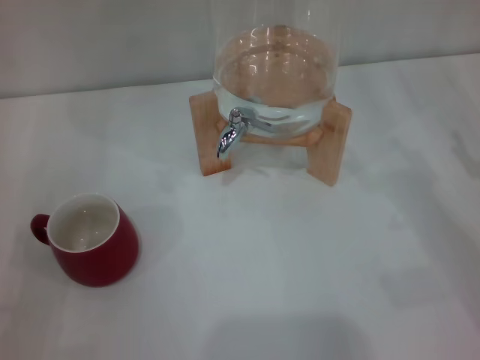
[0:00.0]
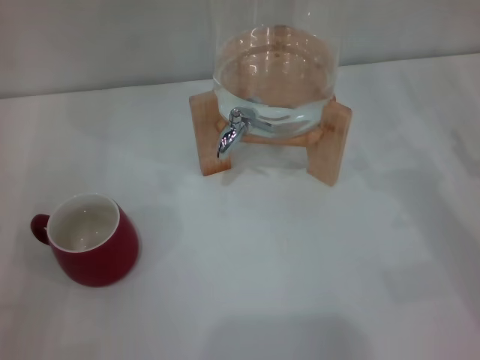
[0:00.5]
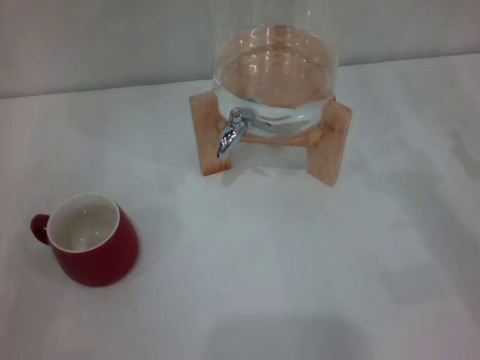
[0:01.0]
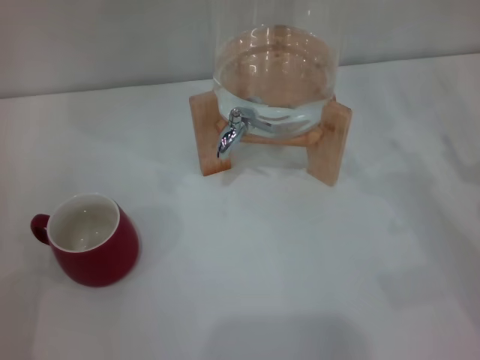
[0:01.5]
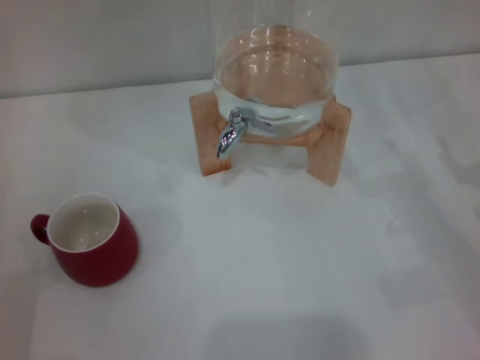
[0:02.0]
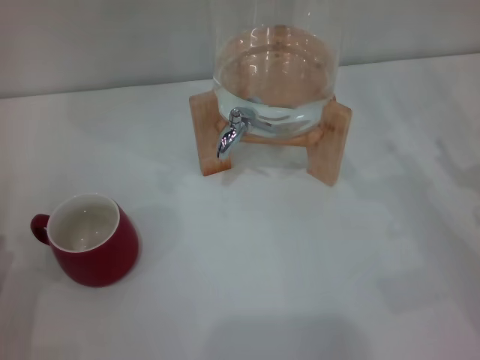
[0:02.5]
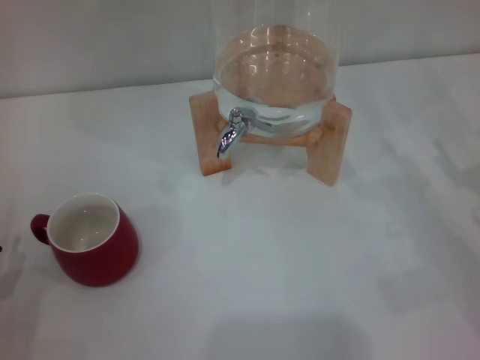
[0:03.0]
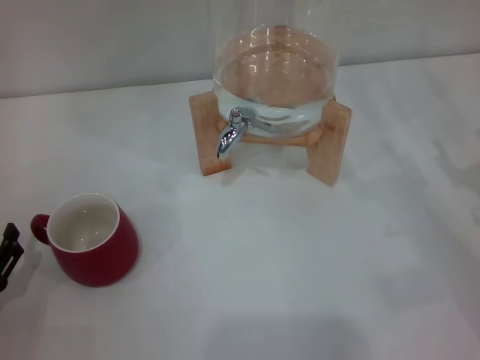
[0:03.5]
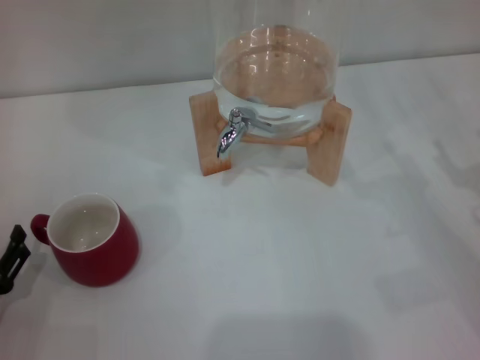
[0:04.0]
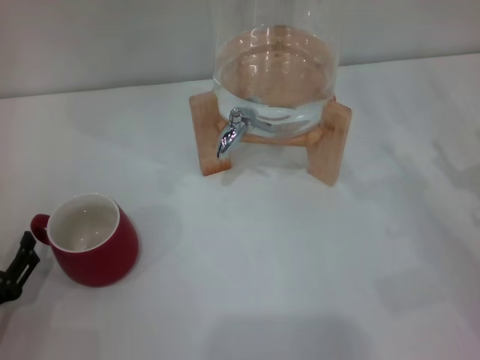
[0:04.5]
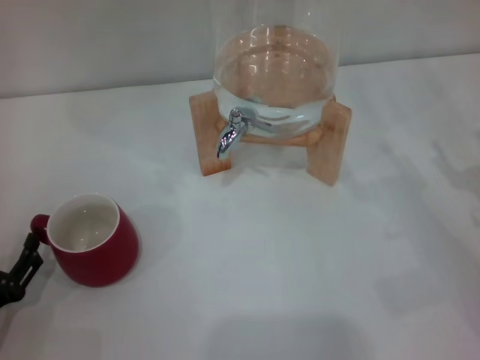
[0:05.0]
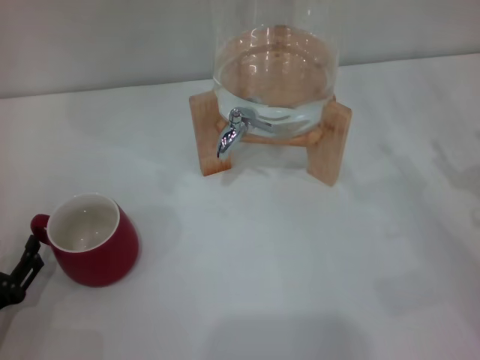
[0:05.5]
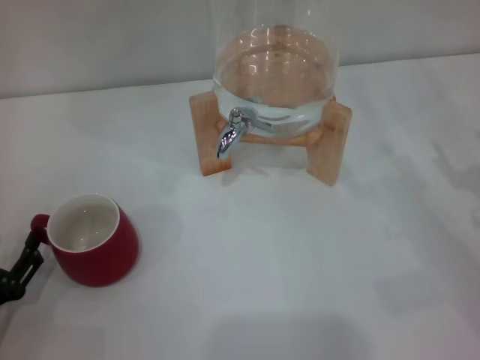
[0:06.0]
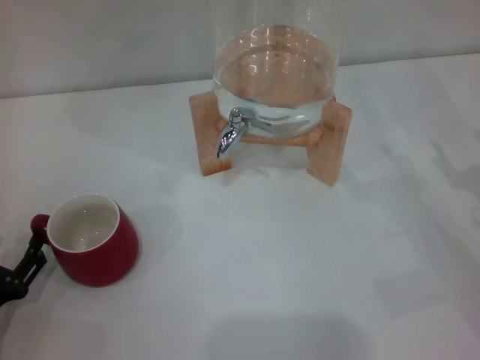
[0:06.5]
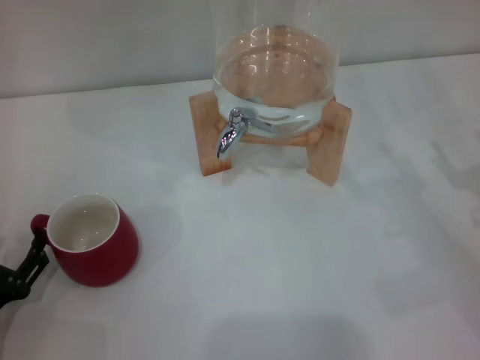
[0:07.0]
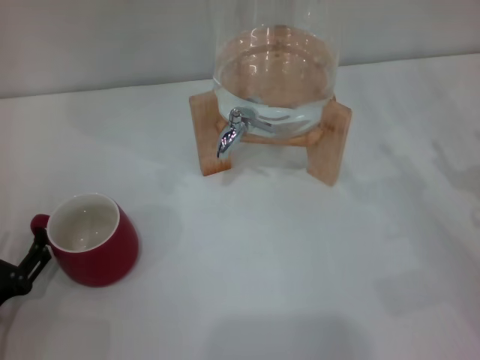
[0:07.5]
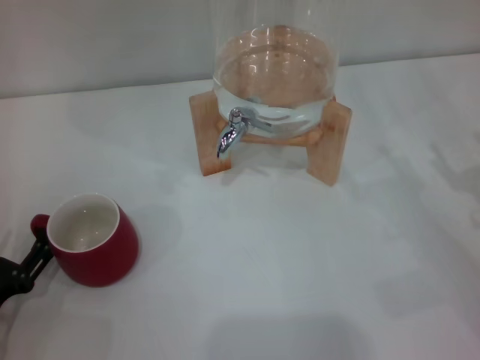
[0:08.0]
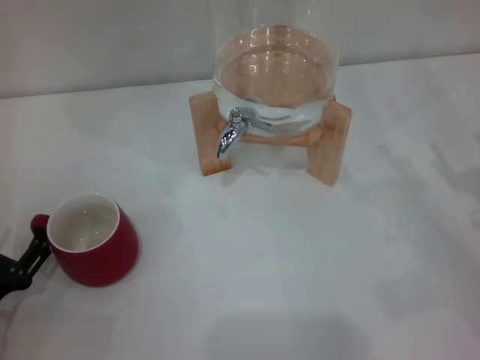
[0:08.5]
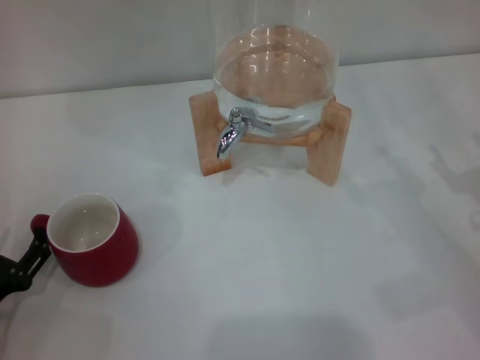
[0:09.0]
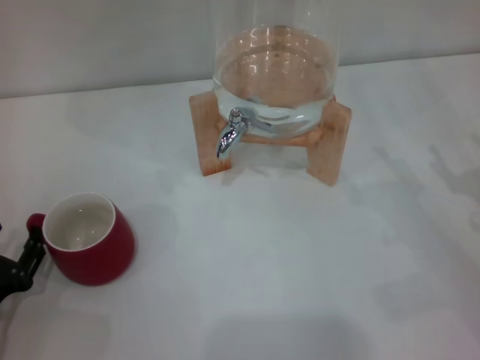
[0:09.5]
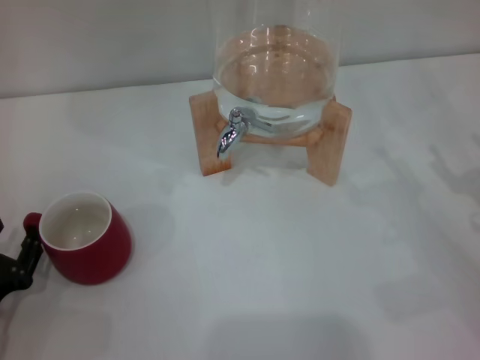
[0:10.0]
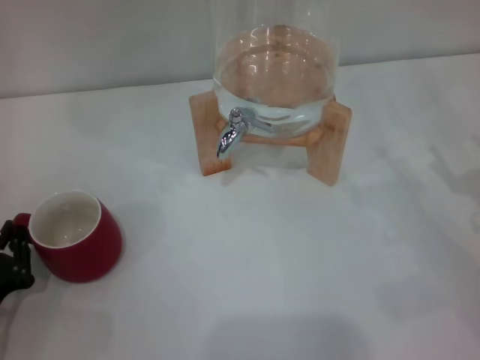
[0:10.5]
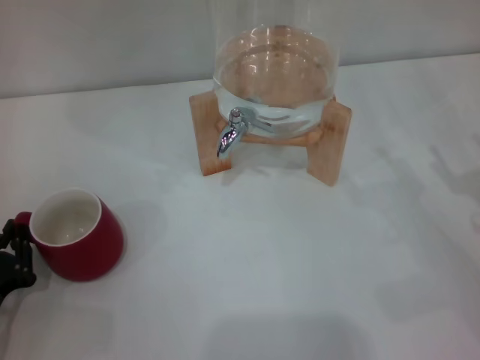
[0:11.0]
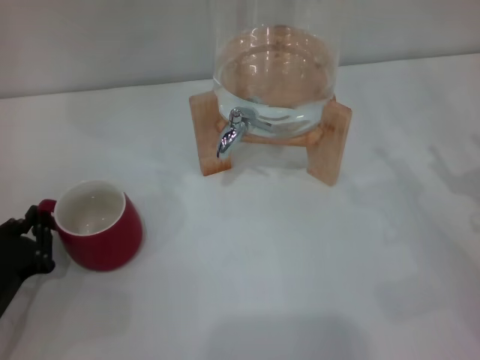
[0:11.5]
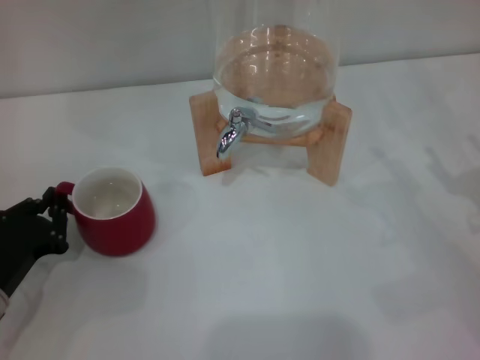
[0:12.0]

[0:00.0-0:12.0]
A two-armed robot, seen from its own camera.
Task of the whole recording: the left gripper pick up the red cup and place it horizontally under the faucet, the right gripper turn on the faucet to fill the cup, and then turn off the faucet.
4.0 to 6.0 s: Neither gripper changes place.
6.0 to 8.0 s: The two grippers keep their place.
8.0 to 10.0 s: Neither gripper changes place.
10.0 to 12.0 s: The left gripper moves approximately 5 cm, and closes.

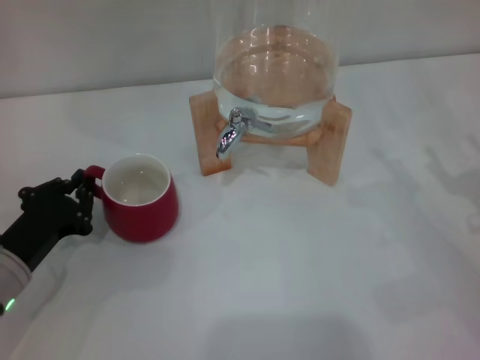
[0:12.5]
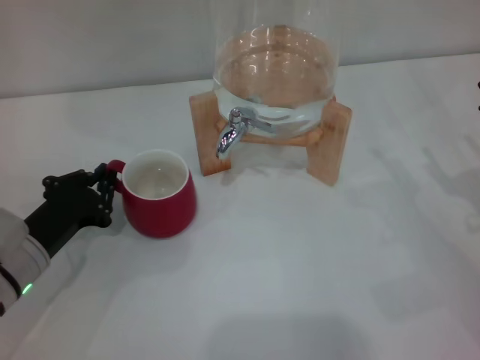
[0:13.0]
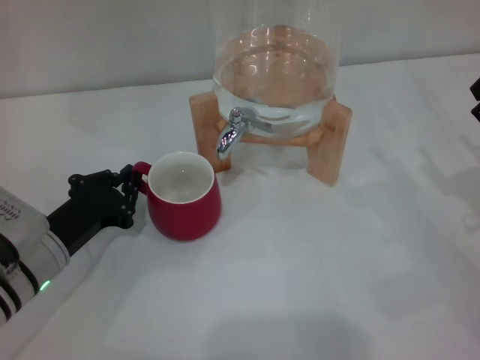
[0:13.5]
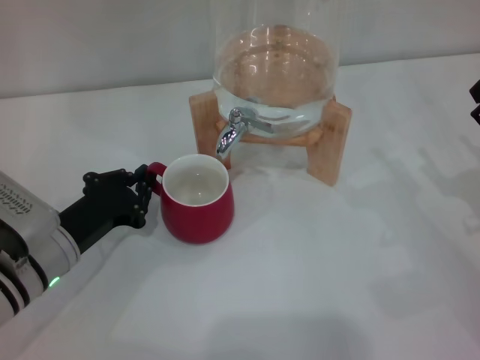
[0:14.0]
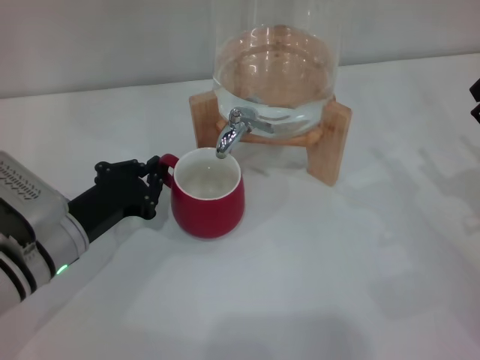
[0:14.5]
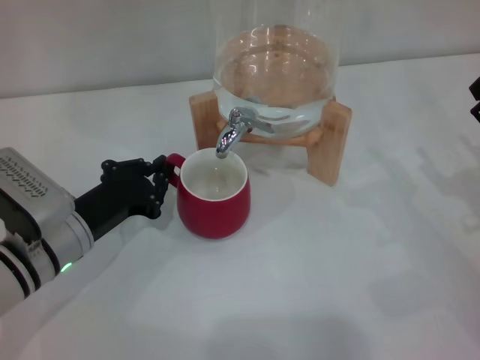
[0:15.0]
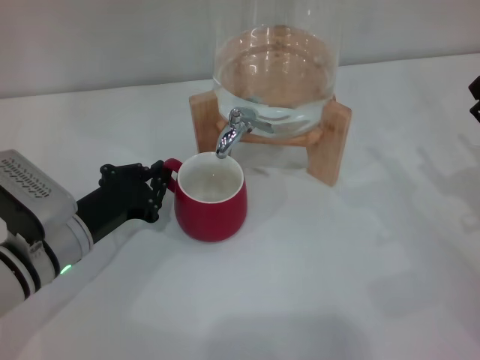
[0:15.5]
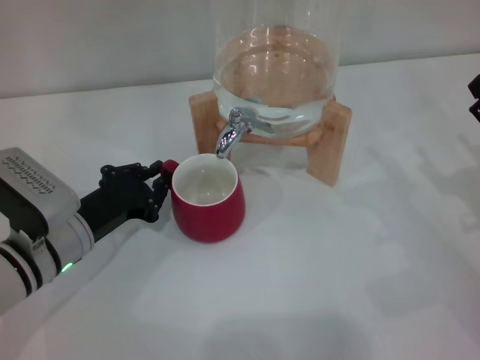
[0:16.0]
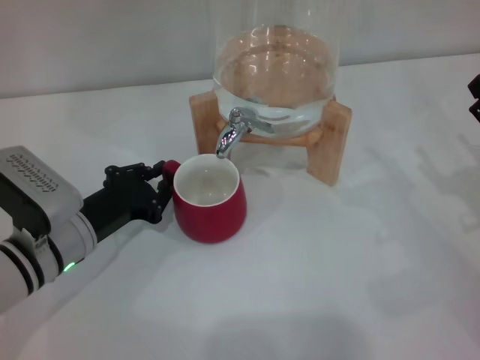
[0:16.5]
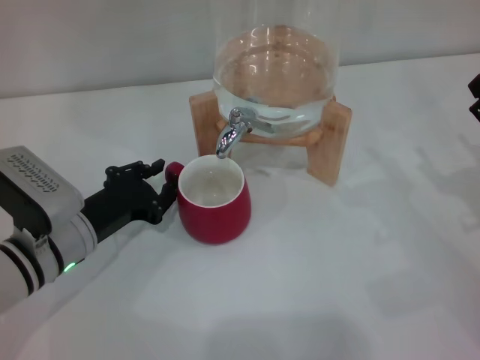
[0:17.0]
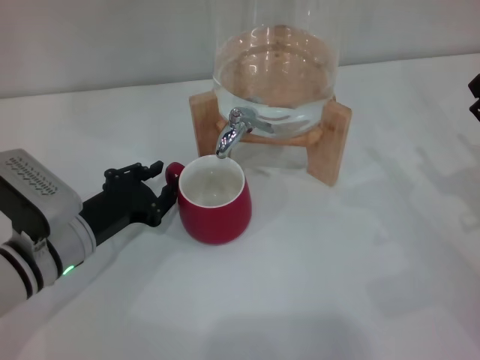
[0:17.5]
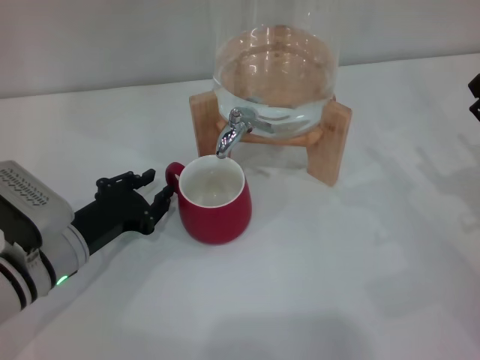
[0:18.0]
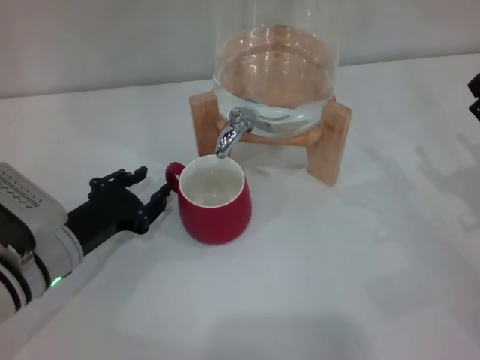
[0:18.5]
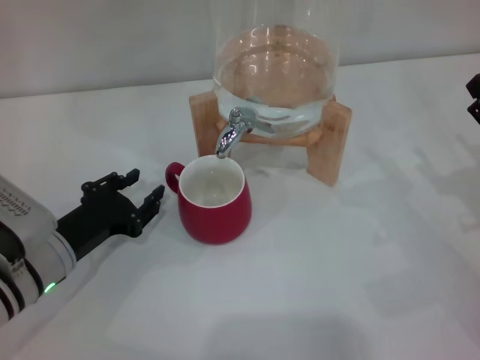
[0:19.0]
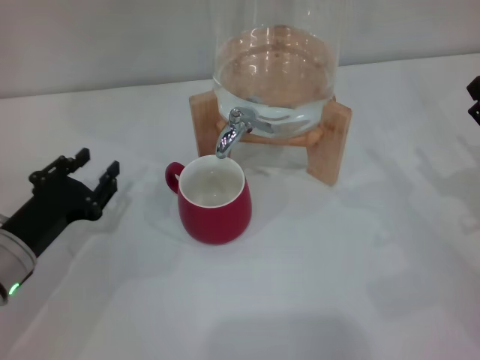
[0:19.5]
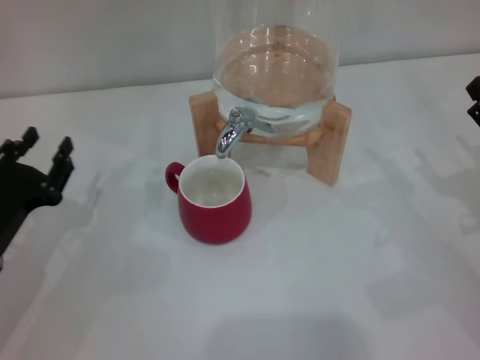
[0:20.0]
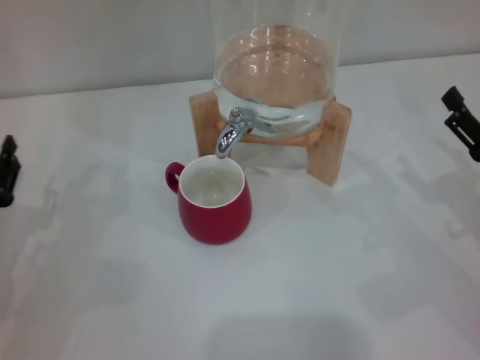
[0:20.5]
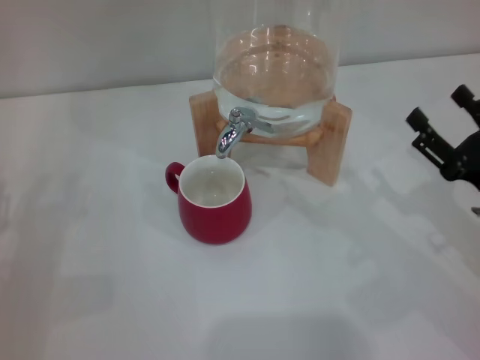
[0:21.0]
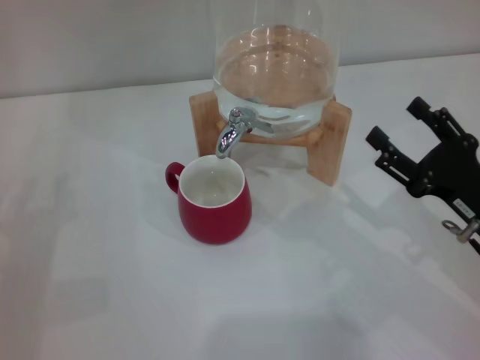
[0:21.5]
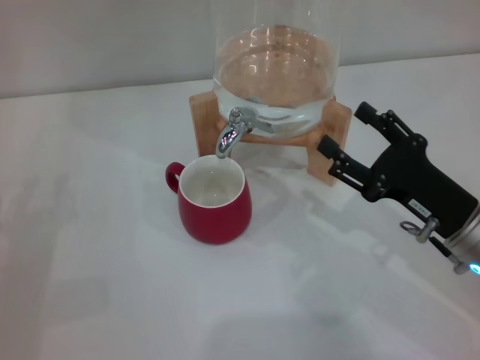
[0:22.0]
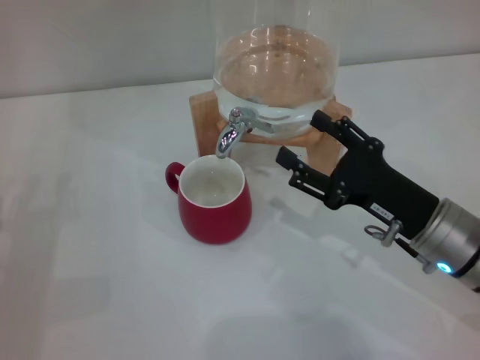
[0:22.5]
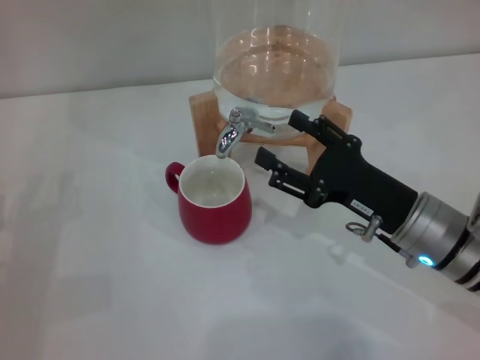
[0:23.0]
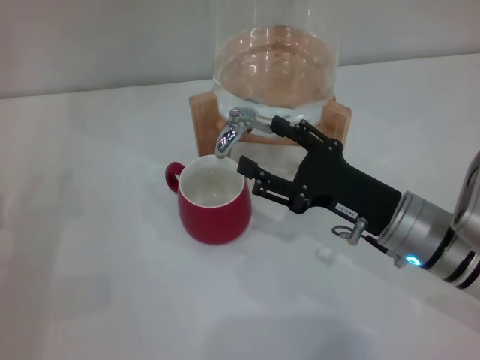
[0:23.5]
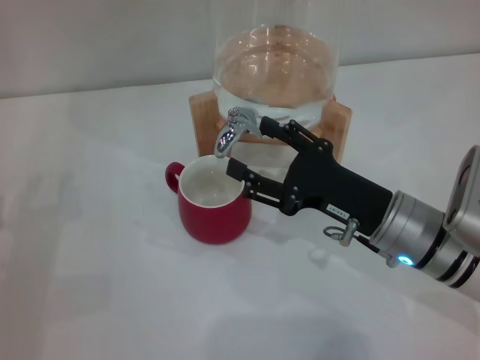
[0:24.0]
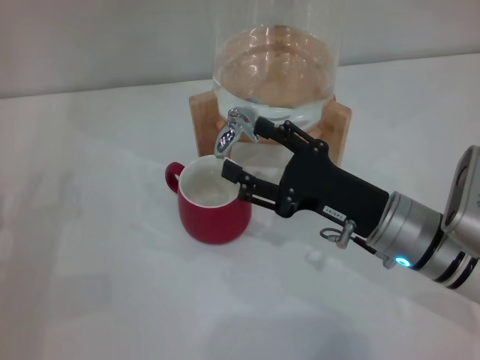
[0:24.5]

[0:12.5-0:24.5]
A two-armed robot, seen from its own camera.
Task of the whole recording: the left gripper pick up the red cup and place it horizontally under the faucet, the right gripper turn on the faucet to fill the cup, and then turn off the faucet.
Step, 12.5 to 19.0 s: Move the cup beneath the water dispenser nozzle with the left gripper.
12.5 to 14.5 s: The left gripper travels to the right by approximately 5 cm.
14.5 to 16.5 s: Neither gripper changes place.
16.5 to 18.5 s: The grippers make only small movements.
18.5 to 20.5 s: The left gripper travels to the left by roughly 10 cm.
20.5 to 22.5 s: The right gripper goes approximately 10 cm to the left.
22.5 to 24.5 s: The grippers make only small movements.

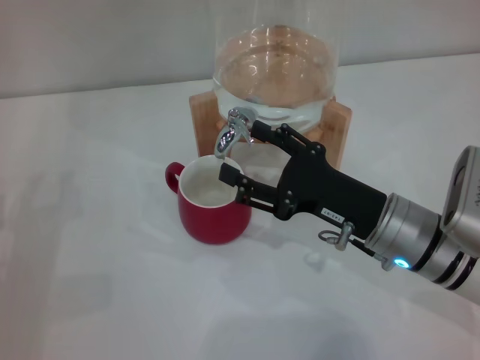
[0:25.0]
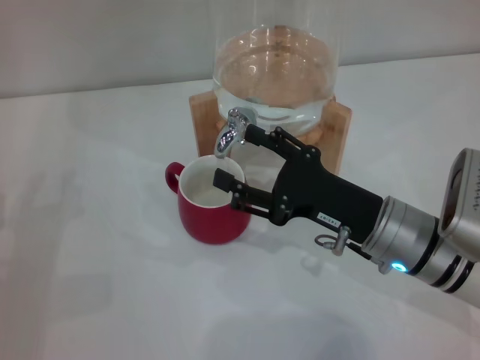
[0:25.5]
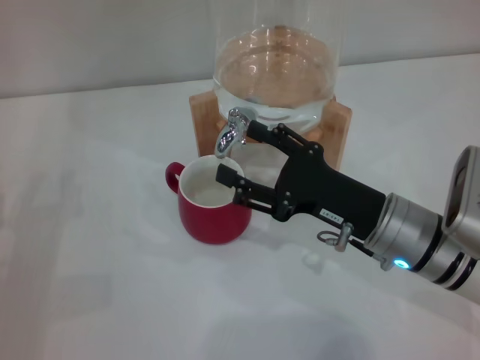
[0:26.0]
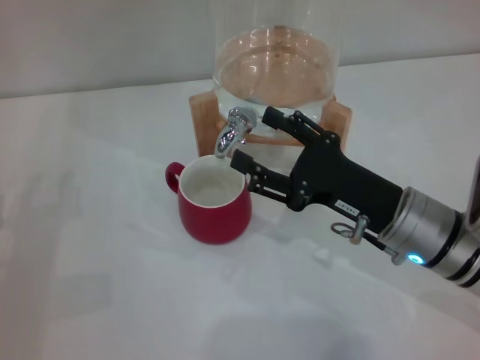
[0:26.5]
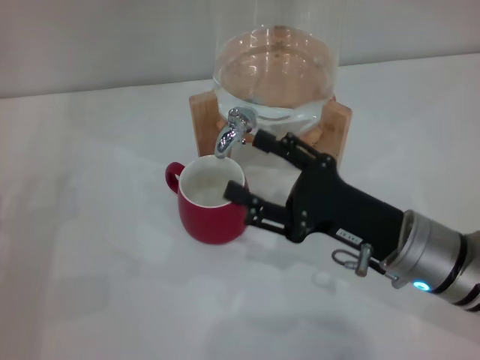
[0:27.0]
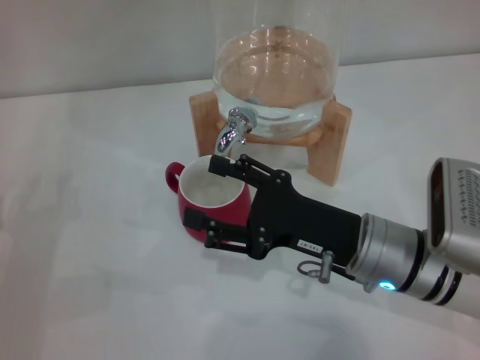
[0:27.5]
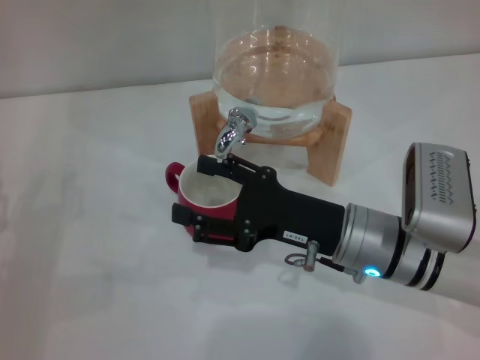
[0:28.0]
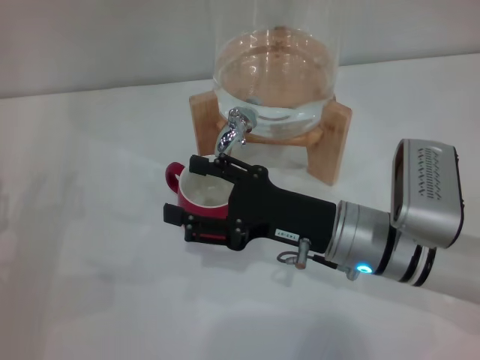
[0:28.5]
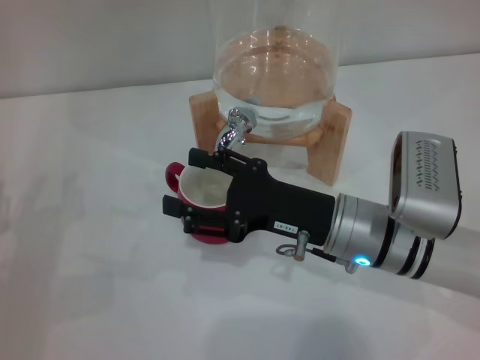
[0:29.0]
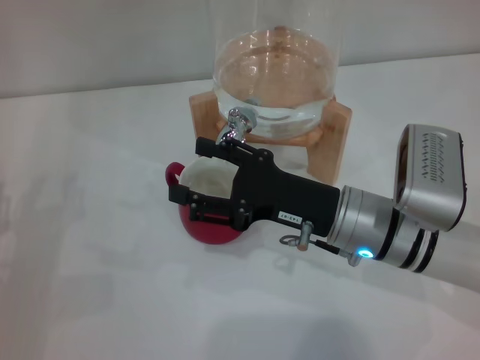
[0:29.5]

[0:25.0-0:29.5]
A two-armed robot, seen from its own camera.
Task of the whole recording: the left gripper pick up the red cup and place it horizontally under the faucet, the right gripper turn on the faucet to fill the cup, and then turn off the faucet.
25.0 to 27.0 s: The grippers move only a little.
27.0 to 29.5 s: The right gripper changes place by about 5 cm.
